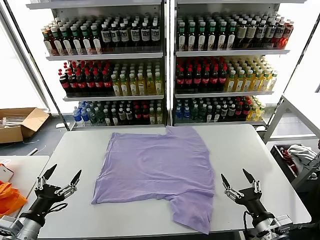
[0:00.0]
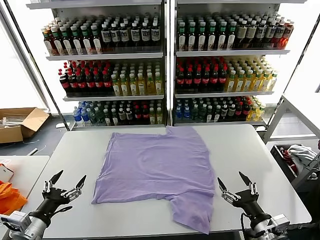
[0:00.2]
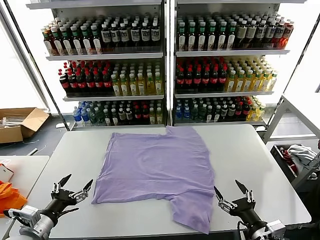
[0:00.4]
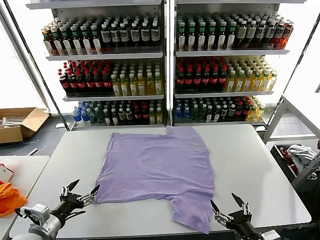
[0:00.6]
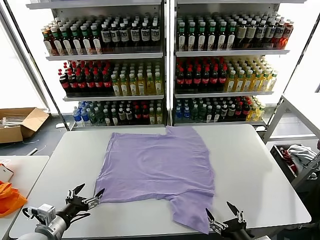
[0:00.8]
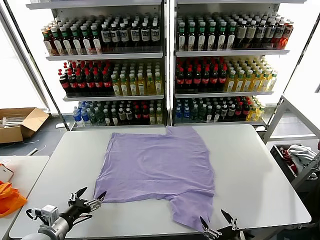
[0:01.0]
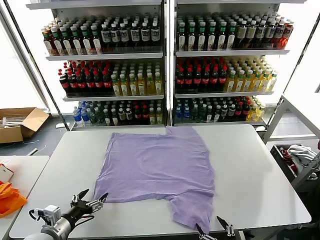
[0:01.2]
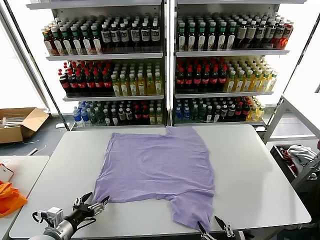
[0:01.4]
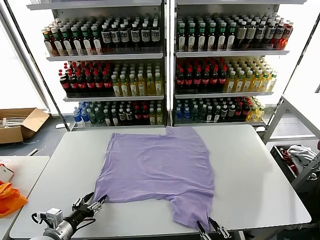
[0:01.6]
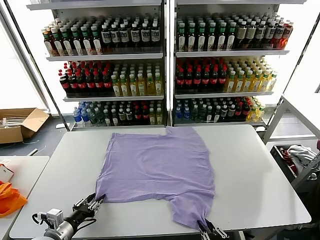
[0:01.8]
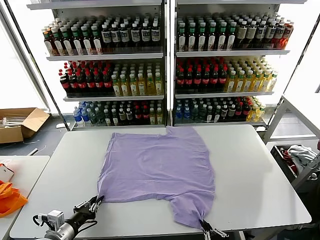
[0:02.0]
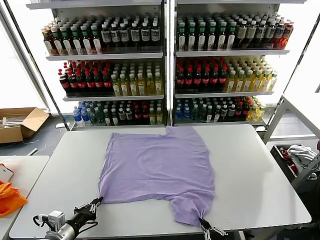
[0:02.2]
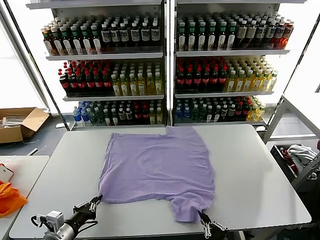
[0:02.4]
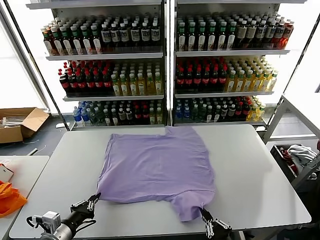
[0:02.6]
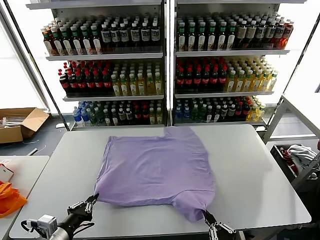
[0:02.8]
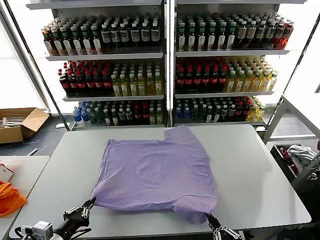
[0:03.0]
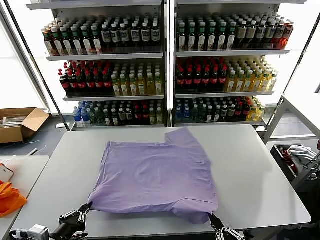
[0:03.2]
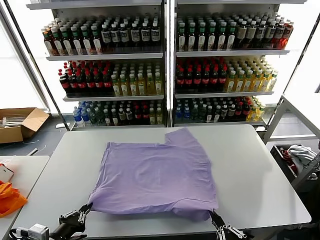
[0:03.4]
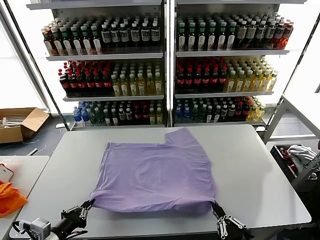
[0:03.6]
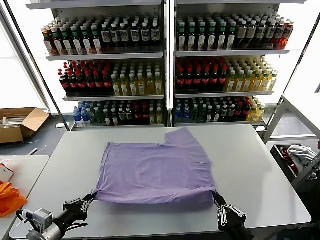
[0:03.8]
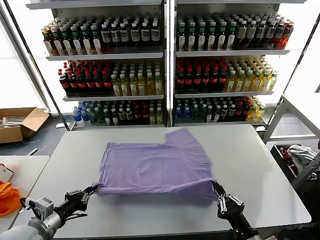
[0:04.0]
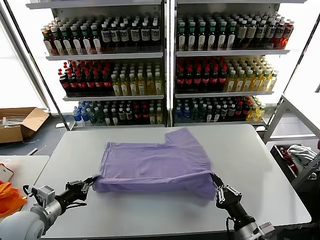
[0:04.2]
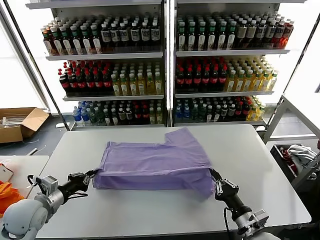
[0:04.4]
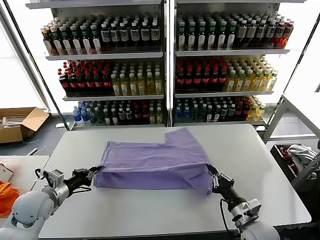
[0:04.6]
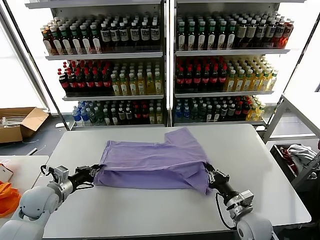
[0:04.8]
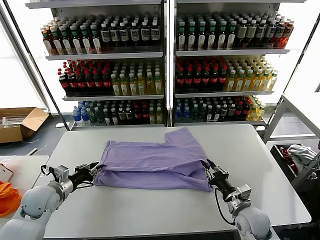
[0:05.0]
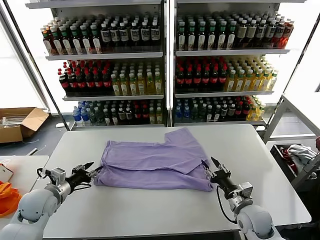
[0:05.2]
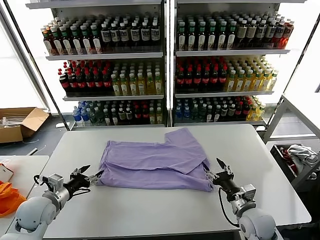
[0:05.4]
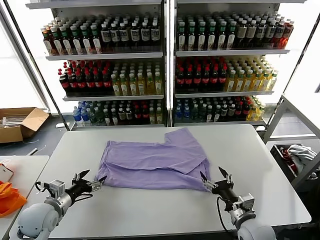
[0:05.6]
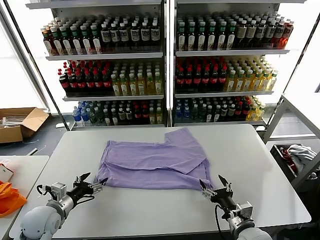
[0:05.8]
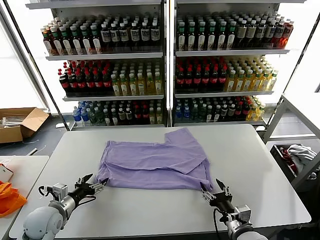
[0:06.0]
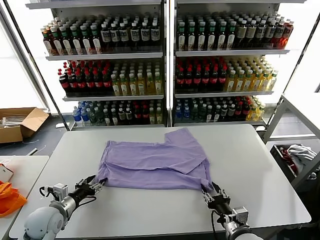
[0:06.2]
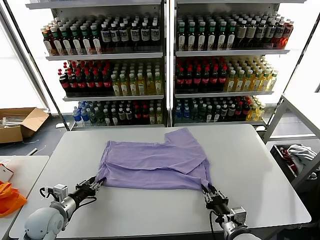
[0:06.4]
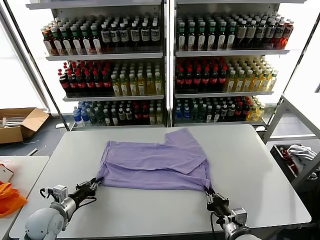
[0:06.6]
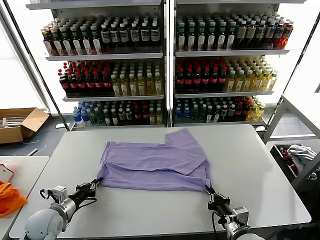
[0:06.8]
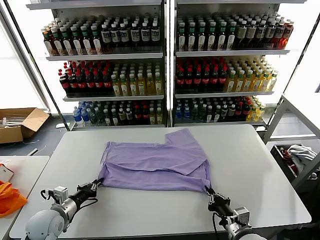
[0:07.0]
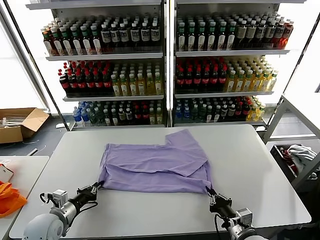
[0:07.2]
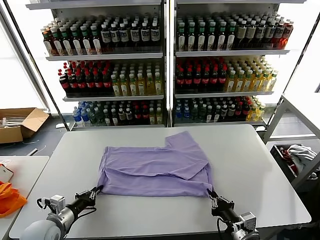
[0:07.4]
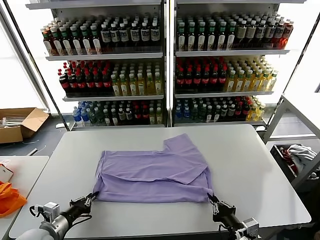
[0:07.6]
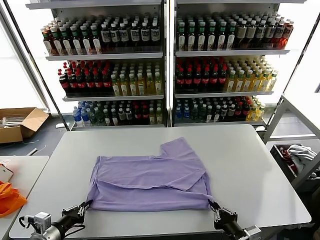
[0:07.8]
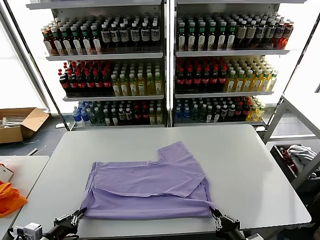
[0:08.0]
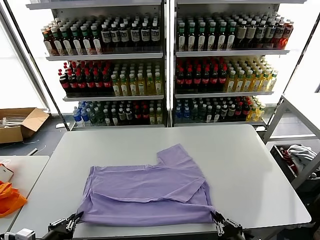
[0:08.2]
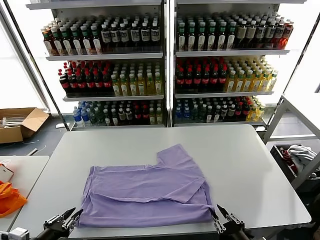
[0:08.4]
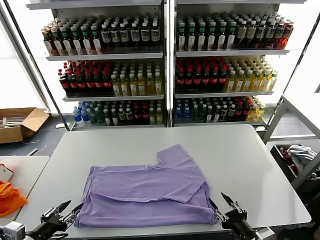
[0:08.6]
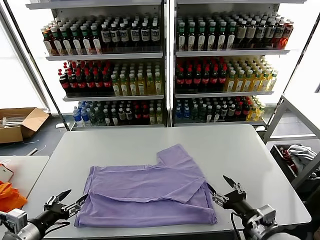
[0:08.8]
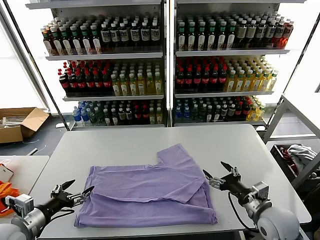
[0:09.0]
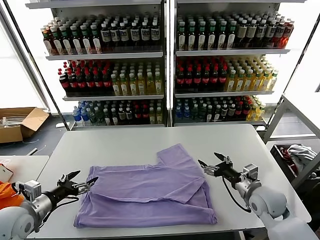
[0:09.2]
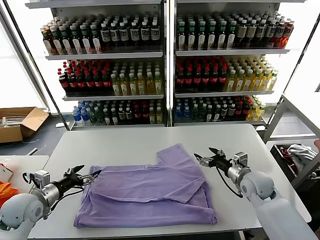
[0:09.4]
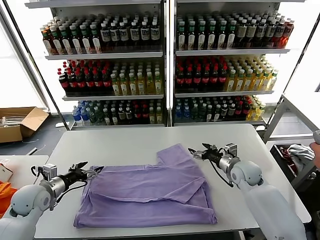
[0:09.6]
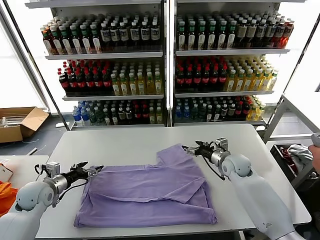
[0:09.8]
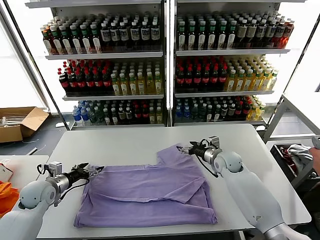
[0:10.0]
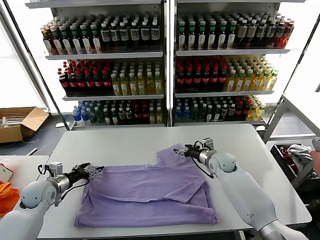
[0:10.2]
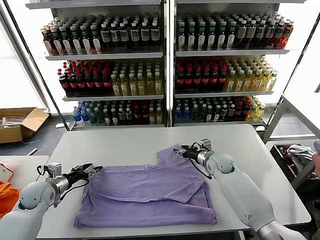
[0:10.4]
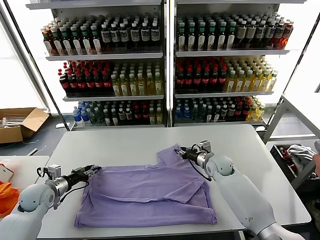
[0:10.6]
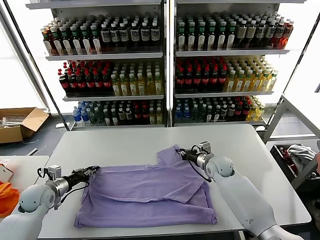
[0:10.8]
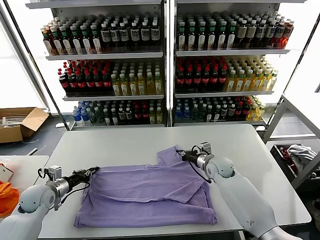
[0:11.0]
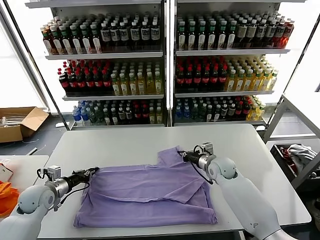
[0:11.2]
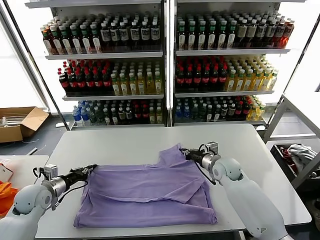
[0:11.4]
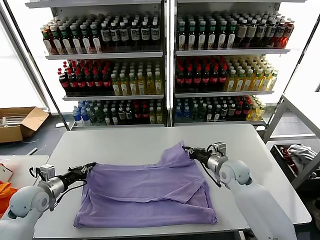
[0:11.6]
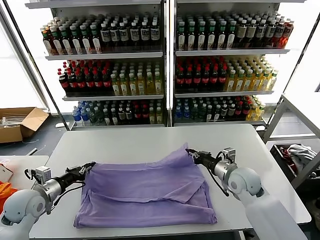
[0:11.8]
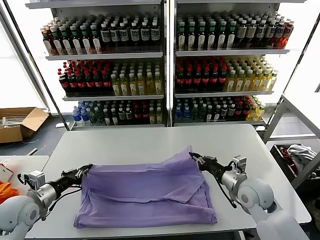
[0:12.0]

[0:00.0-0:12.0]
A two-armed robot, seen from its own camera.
Task of the whole recording: fold and organize the clothes.
Step, 0:00.0 to 0:02.2: use both grippers simultaneously to clamp the lower edge of the clothing fabric.
Step, 0:02.6 to 0:05.2: use both grippers to drag the lower edge of the fabric forward and fold it over the upper edge.
Step, 0:05.4 to 0:08.4: Drag the clothes downward with both gripper.
Step, 0:08.8 to 0:11.2: use both grippers simultaneously to clamp the upper edge of the clothing fabric.
0:01.6 to 0:03.0: The left gripper shifts approximately 10 cm upward and backward, and closes its fingers; the right gripper shifts by roughly 5 cm, and closes its fingers.
0:03.0 to 0:04.4: The right gripper goes about 20 cm forward. The left gripper travels forward and to the left by roughly 15 cm.
0:04.4 to 0:06.0: The left gripper heads downward, covering approximately 5 cm, and opens up. Meanwhile the right gripper travels forward and back again, roughly 5 cm each way, and opens up.
0:06.0 to 0:07.6: The two grippers go approximately 5 cm backward. The right gripper closes its fingers. The left gripper closes up.
0:07.6 to 0:09.0: The left gripper travels upward by about 10 cm, goes backward and returns, about 10 cm each way, and opens up, while the right gripper goes approximately 15 cm forward, and opens.
0:09.0 to 0:10.4: The right gripper is displaced forward and to the left by roughly 25 cm, and closes, while the left gripper shifts roughly 20 cm forward and downward.
0:10.4 to 0:12.0: The right gripper travels backward and upward by approximately 20 cm, and closes up. Meanwhile the left gripper goes approximately 10 cm backward and upward, and closes its fingers.

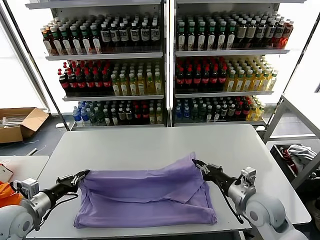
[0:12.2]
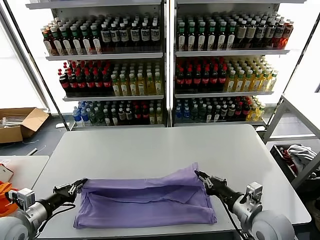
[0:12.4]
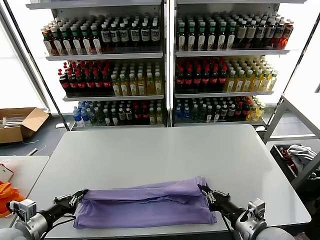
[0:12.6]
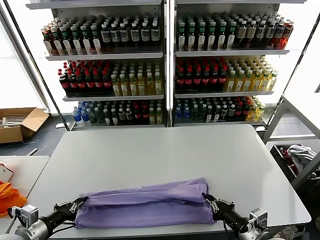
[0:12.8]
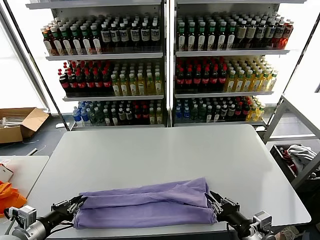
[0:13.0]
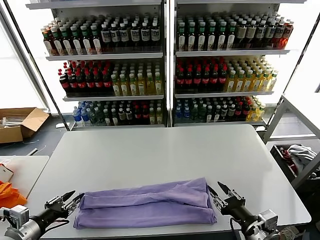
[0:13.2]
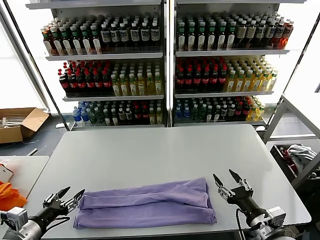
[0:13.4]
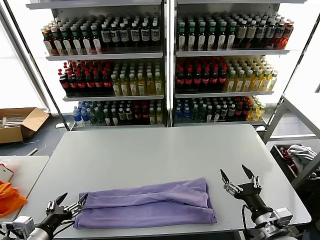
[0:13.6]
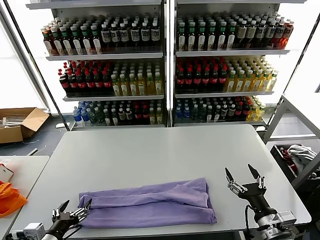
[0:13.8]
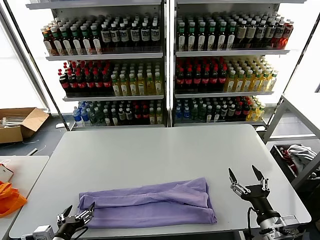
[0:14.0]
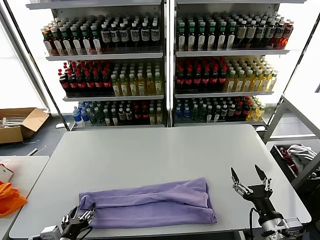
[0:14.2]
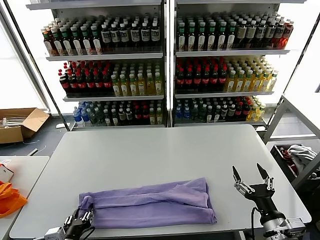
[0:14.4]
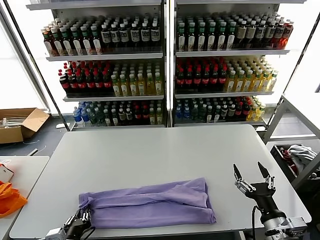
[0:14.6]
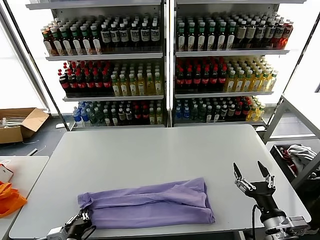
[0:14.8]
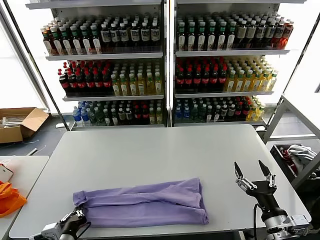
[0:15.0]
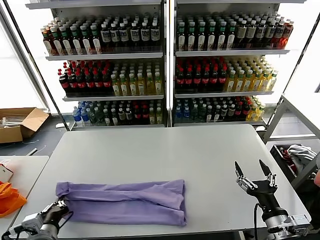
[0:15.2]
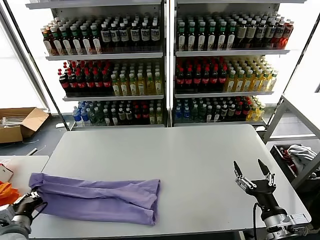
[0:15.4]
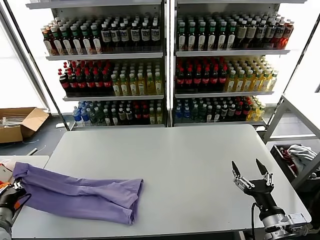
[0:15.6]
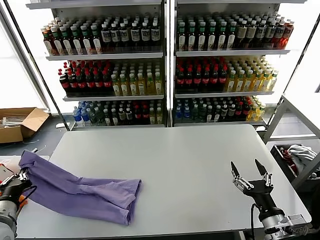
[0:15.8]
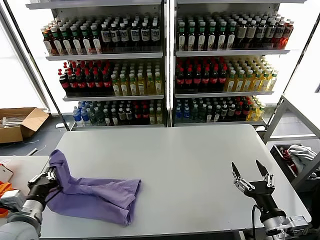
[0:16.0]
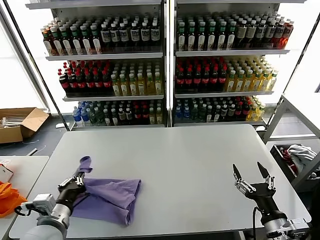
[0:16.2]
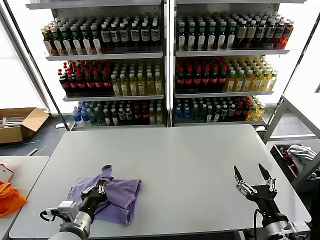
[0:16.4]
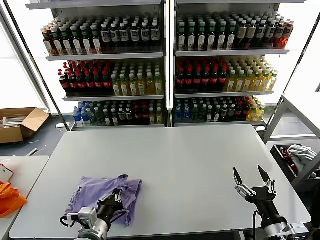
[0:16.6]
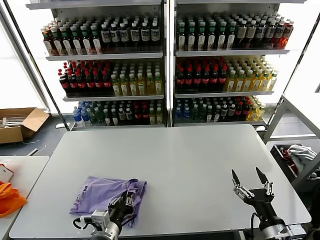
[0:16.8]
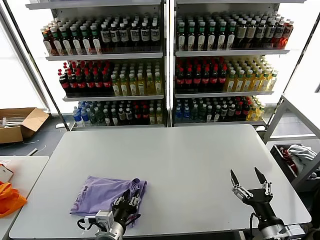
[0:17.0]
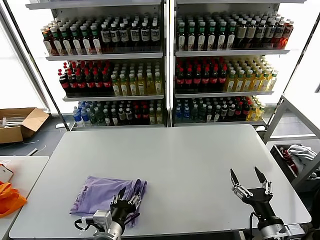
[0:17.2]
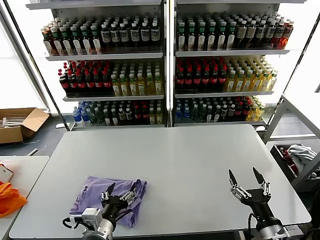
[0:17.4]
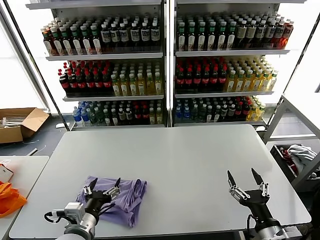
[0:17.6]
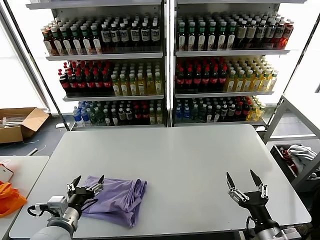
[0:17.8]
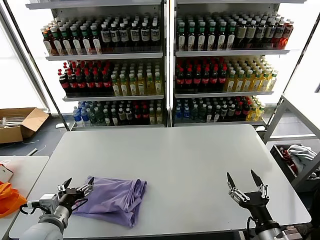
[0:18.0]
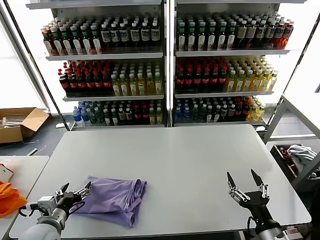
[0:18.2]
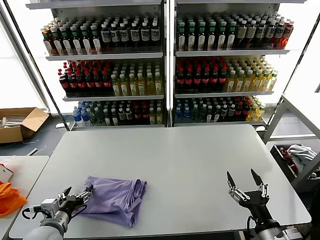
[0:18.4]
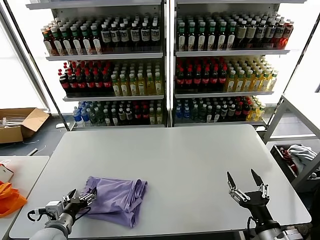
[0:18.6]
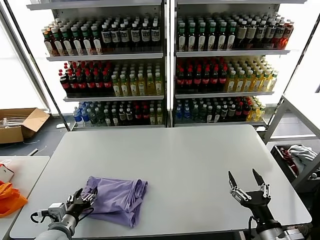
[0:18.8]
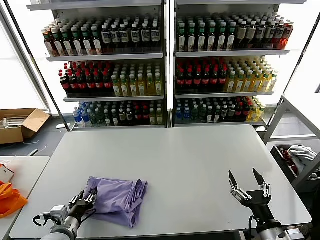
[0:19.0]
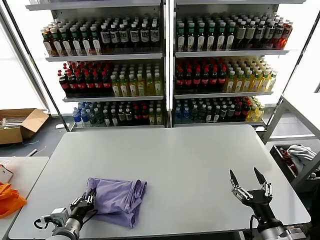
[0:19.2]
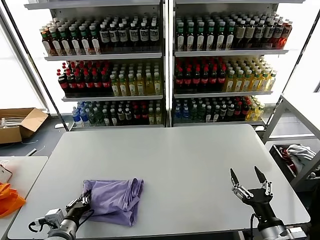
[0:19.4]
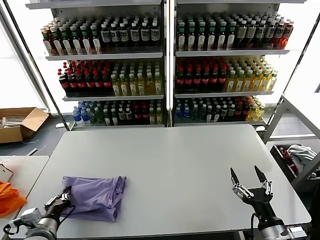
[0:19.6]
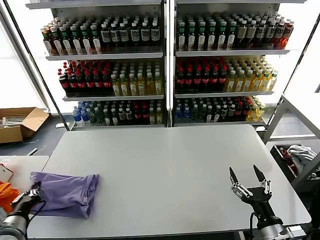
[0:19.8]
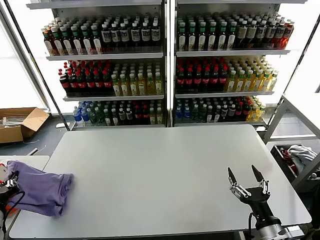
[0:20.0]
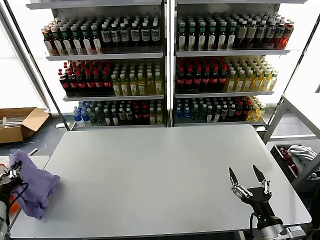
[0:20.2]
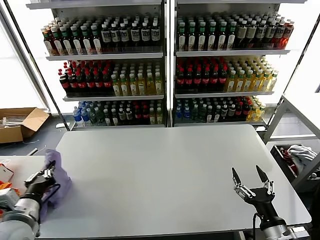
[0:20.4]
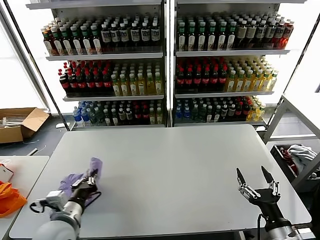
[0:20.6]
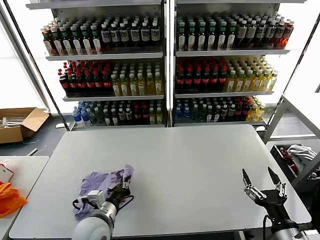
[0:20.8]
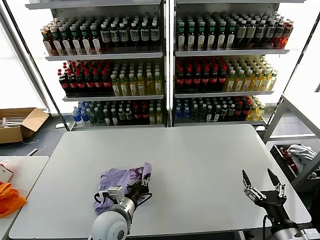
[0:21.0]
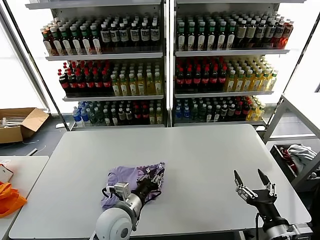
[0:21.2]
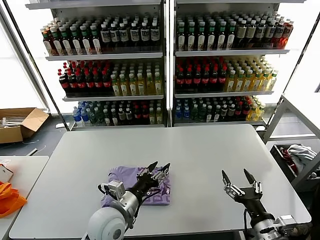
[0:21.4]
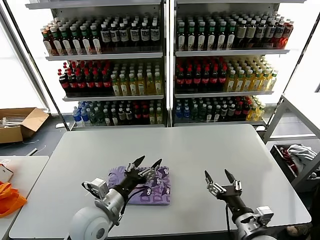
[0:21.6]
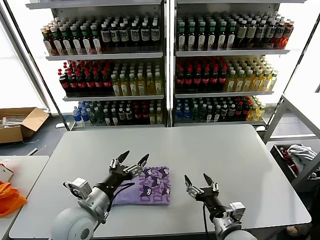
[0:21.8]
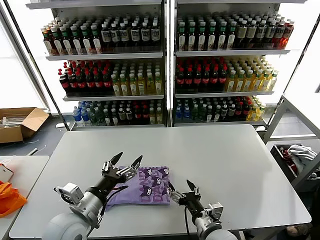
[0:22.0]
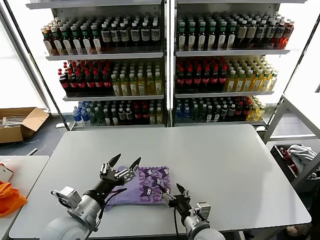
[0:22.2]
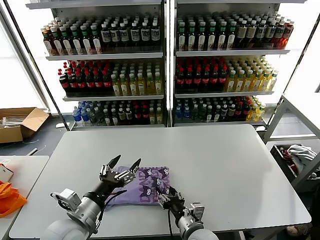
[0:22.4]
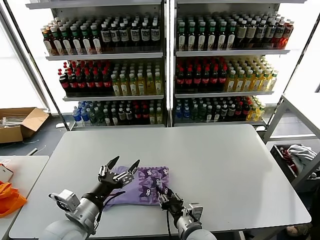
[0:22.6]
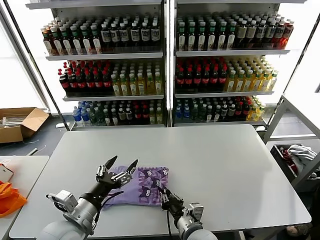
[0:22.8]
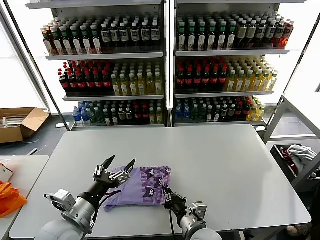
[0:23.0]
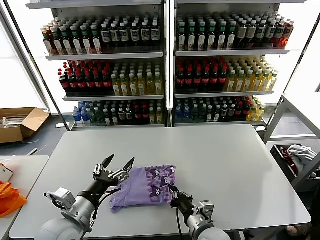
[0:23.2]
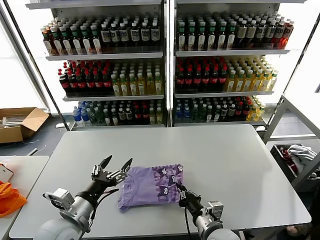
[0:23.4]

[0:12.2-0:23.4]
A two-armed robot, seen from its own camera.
Task of the whole recording: fold and organize the clothes.
Step, 0:12.2 to 0:13.2: use both grippers to drag the upper edge of the fabric backward and fold it over the lower edge.
Step, 0:13.4 to 0:15.0: use the left gripper to clamp the left edge of the fabric.
Step, 0:15.2 to 0:17.4: use the left gripper to drag the left edge of the fabric to the left and folds it over the right edge.
Step, 0:17.6 to 0:21.4: Flip the folded clothes over with left gripper.
0:12.2 to 0:13.8: The left gripper travels backward and to the right by approximately 15 cm, and opens its fingers, while the right gripper moves backward, some 10 cm, and opens its fingers.
0:13.8 to 0:15.4: The left gripper shifts by some 5 cm, and closes.
0:15.4 to 0:17.0: The left gripper moves to the right, some 25 cm, and opens.
0:17.0 to 0:18.6: The left gripper goes about 15 cm to the left, and opens.
0:18.6 to 0:20.2: The left gripper moves upward and to the left, about 15 cm, and closes its fingers.
0:20.2 to 0:21.8: The left gripper travels to the right by about 20 cm, and opens its fingers; the right gripper travels to the left and forward by roughly 10 cm.
0:21.8 to 0:23.4: The left gripper ends up about 5 cm from where it was; the right gripper travels to the left by about 5 cm, and closes up.
